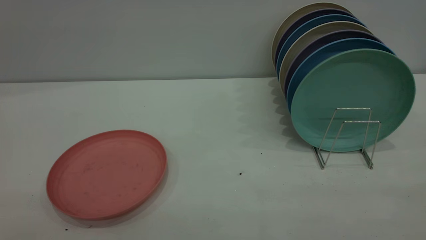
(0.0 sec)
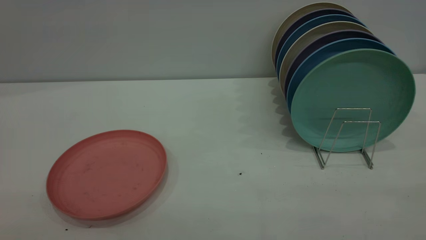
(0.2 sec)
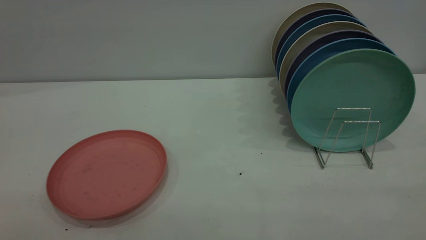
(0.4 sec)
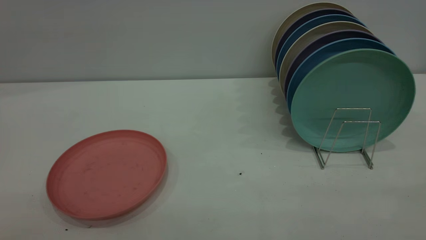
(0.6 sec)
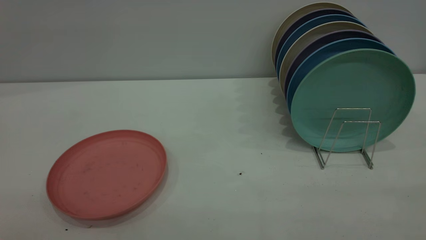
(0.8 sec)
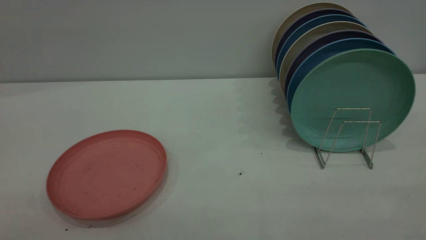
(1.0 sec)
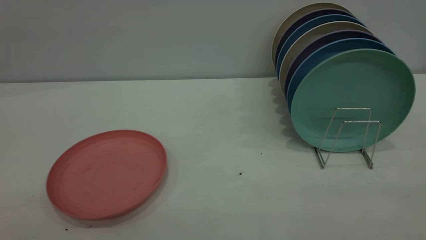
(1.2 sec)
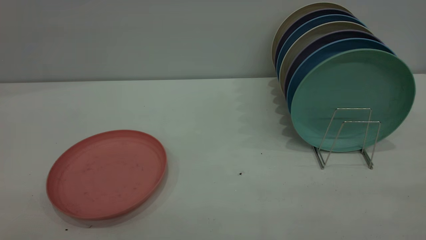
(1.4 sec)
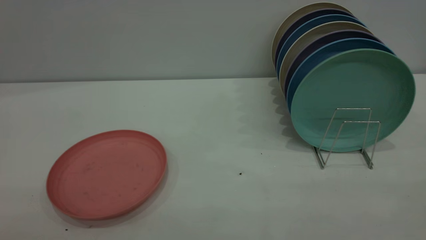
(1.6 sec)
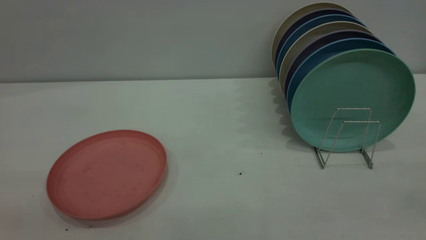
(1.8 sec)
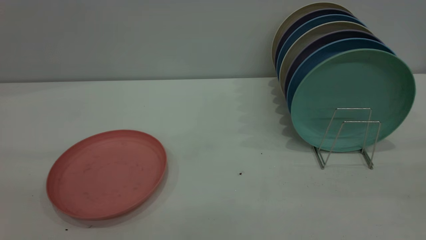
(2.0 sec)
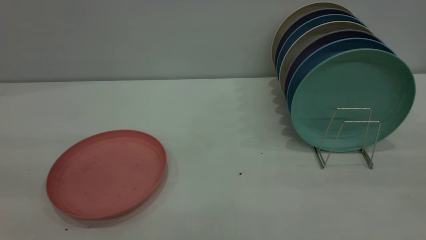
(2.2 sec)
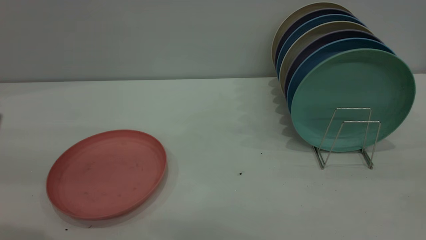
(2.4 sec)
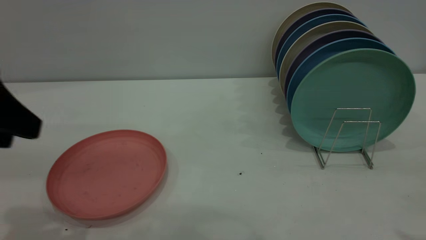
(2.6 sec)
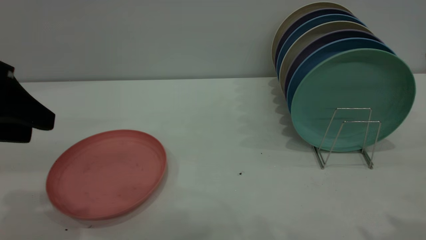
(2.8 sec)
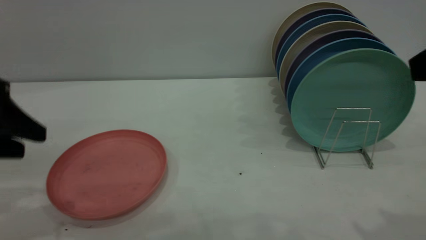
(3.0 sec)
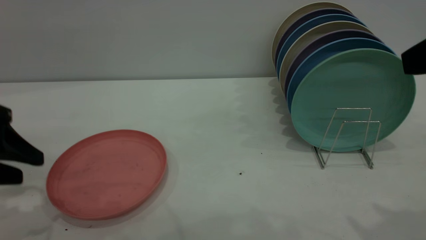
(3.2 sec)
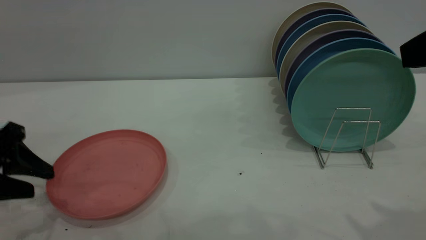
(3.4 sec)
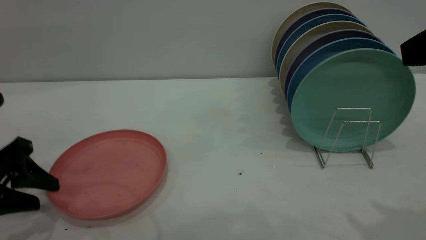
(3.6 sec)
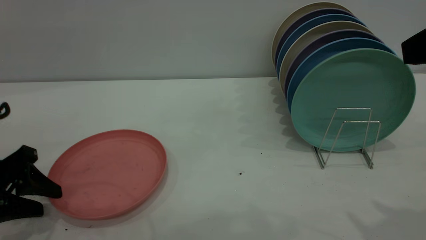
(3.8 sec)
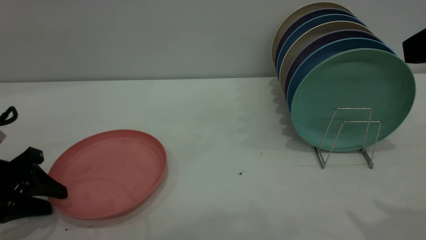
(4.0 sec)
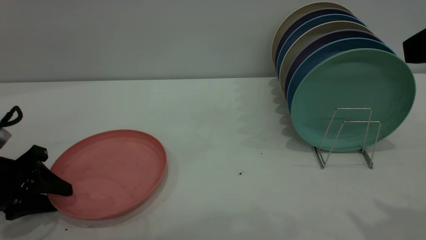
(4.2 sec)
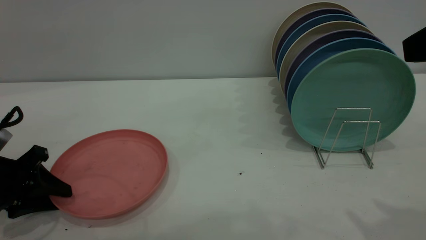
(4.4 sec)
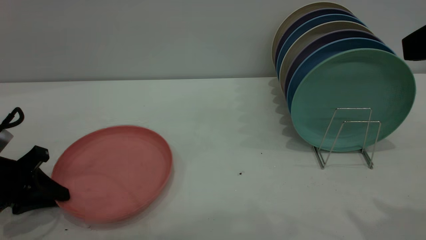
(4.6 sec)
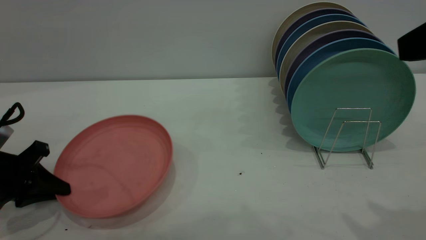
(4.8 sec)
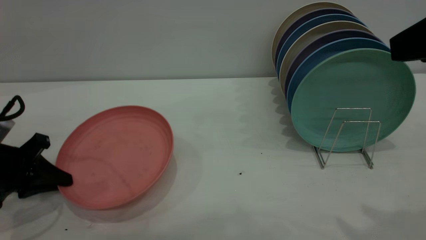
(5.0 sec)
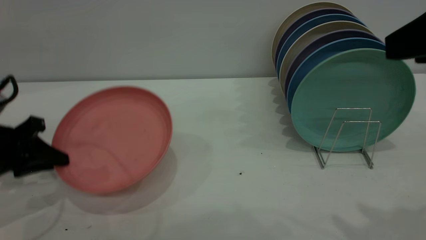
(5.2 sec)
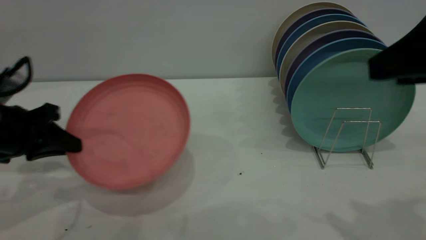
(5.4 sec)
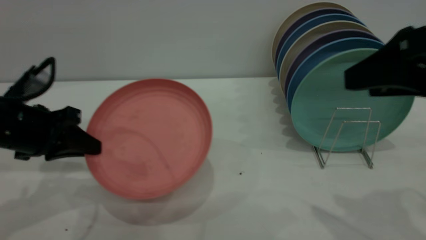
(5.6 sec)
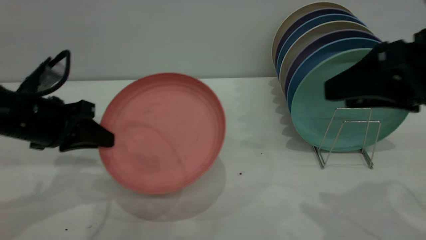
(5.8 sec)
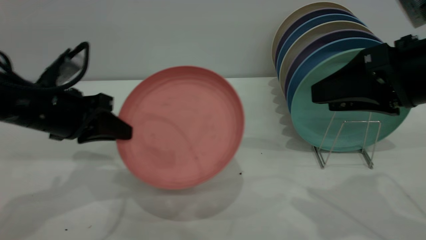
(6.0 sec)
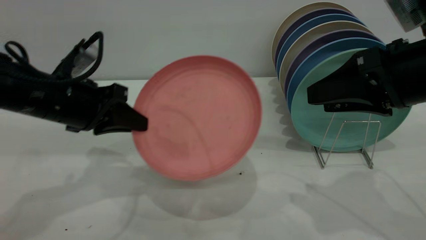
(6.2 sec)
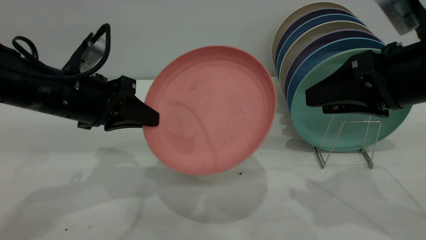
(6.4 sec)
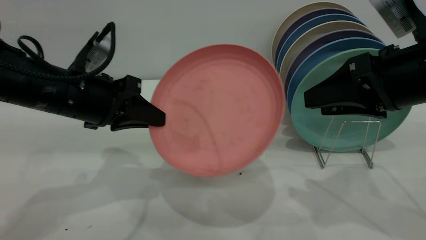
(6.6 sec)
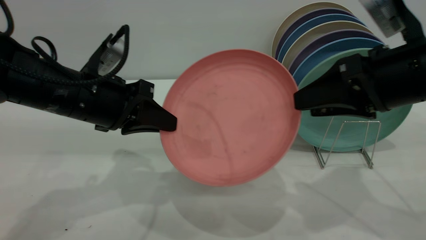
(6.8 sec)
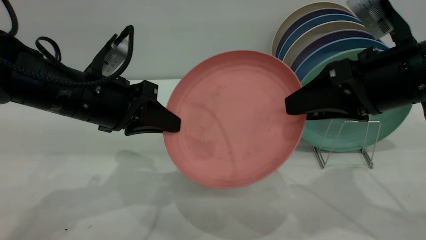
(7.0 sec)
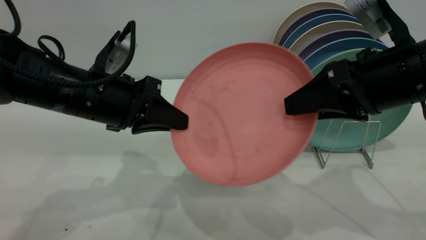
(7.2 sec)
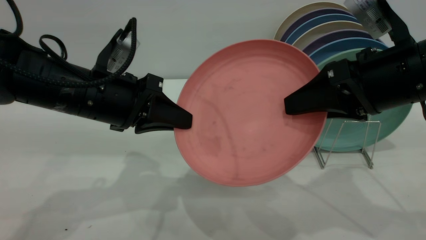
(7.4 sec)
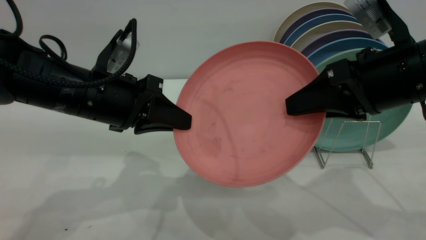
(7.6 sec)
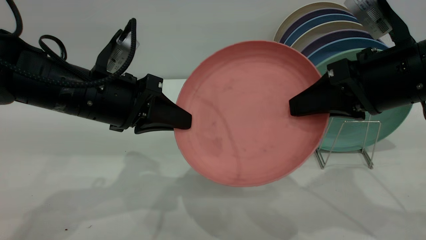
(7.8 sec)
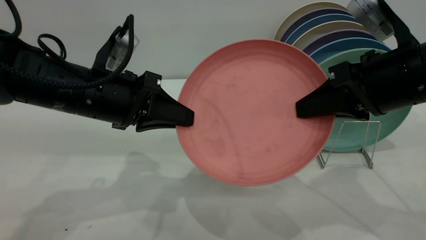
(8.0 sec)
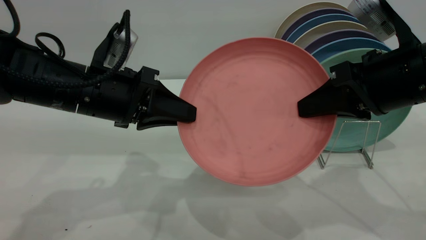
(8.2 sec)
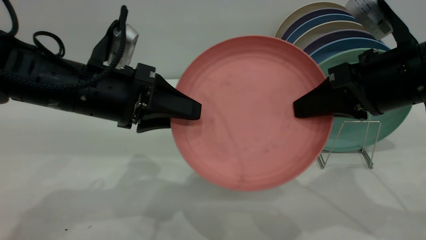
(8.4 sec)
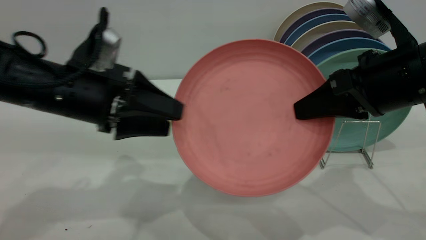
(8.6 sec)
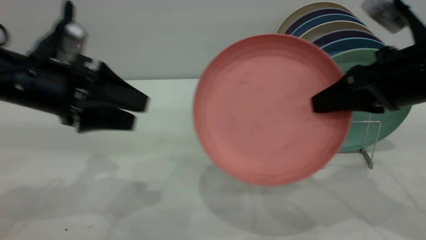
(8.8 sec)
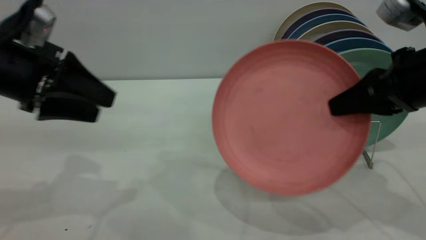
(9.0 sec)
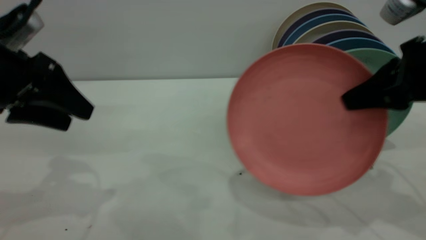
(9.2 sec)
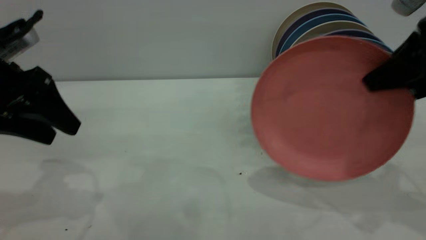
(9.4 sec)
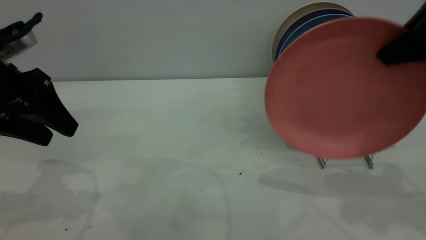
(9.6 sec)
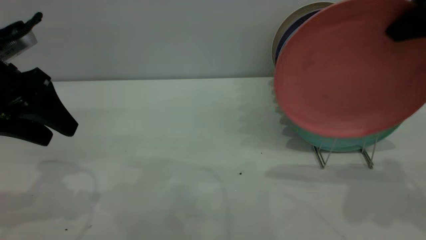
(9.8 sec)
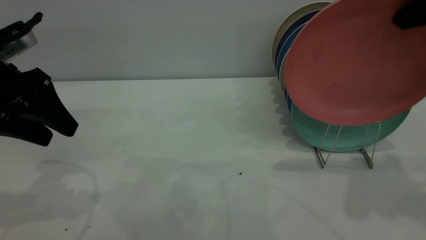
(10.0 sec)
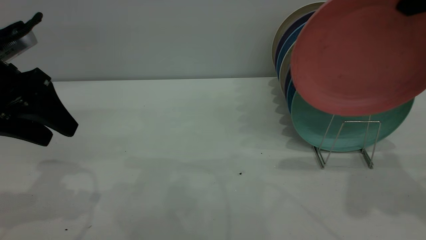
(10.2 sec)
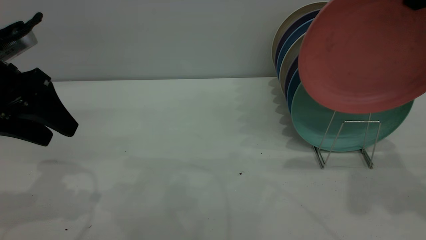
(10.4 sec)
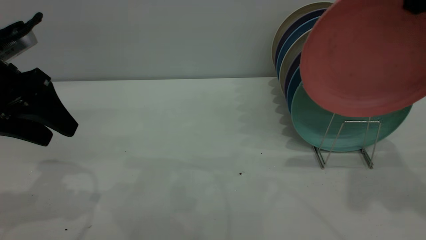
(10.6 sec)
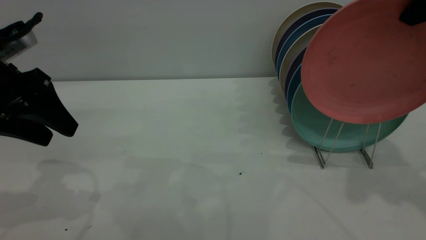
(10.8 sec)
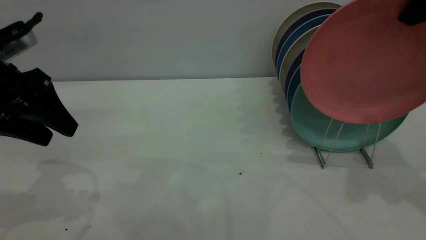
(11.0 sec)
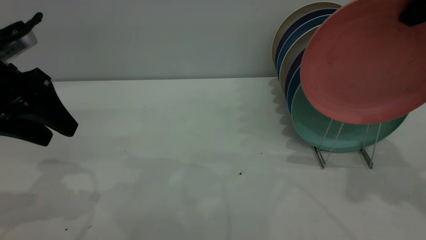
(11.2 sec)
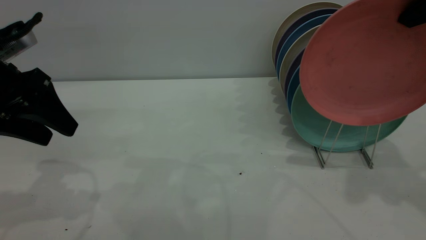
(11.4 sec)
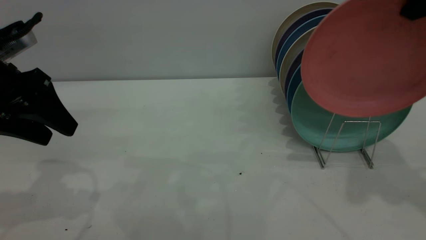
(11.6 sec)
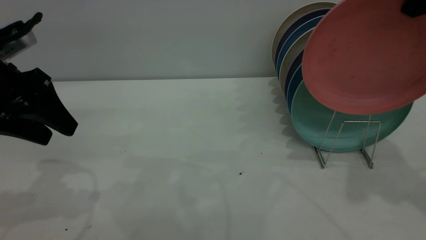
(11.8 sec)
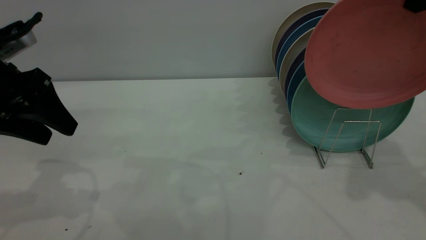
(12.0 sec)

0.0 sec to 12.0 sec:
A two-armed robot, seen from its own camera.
Task of the whole recording: the left gripper grasp the pink plate, the left gripper pass the pink plate to the right gripper, and the right gripper place the pink plate on the plate rack.
Step, 0.0 sec to 5.2 sec: Pick up the plate with the left gripper.
Step, 5.4 sec to 8.8 sec: Pass the plate from the left gripper to the right gripper.
1.6 sec to 3.0 sec: The left gripper travels forward and downward by approximately 30 cm.
3.0 sec to 4.4 sec: The left gripper heads downward, covering roughly 15 cm.
4.4 sec to 6.0 sec: The right gripper heads downward and forward, covering about 10 cm; the left gripper moves to the right, upward and forward, about 15 cm, and closes.
6.0 sec to 7.6 sec: The left gripper heads to the right, covering roughly 5 cm.
7.6 sec to 9.0 sec: The right gripper closes up, while the left gripper goes approximately 10 cm to the left and upward, and opens up.
9.0 sec to 10.4 sec: The right gripper heads upward, covering approximately 15 cm.

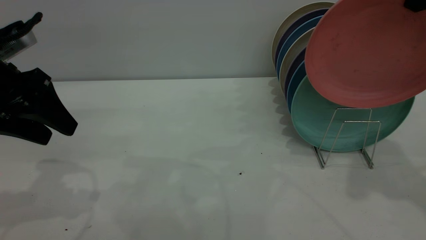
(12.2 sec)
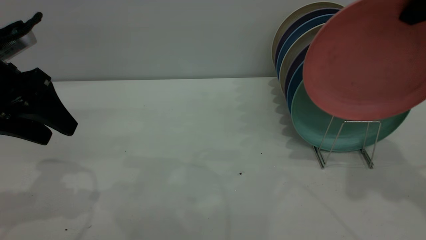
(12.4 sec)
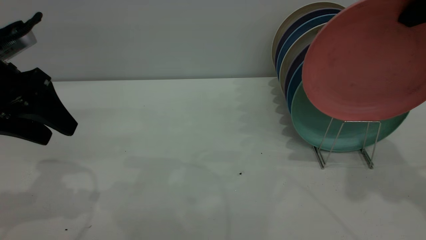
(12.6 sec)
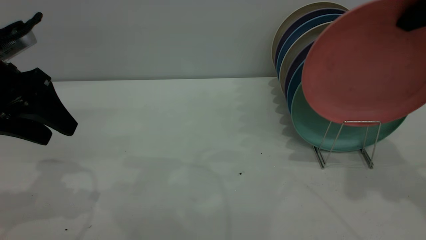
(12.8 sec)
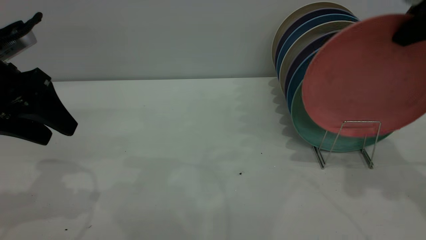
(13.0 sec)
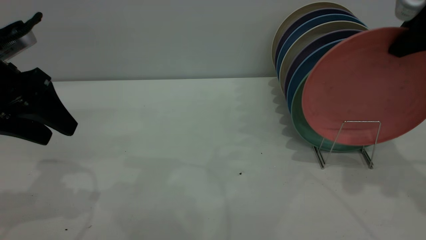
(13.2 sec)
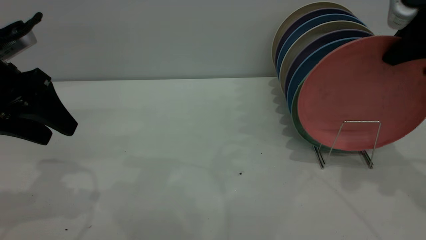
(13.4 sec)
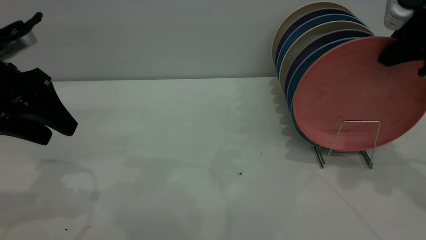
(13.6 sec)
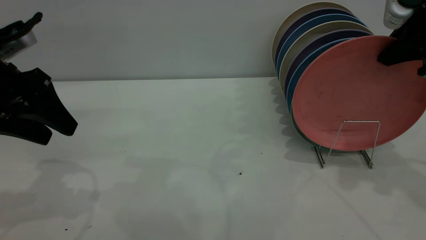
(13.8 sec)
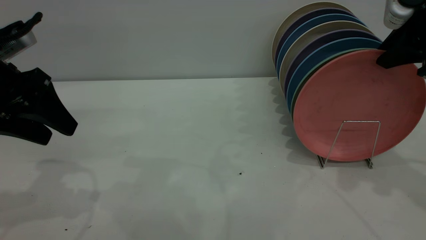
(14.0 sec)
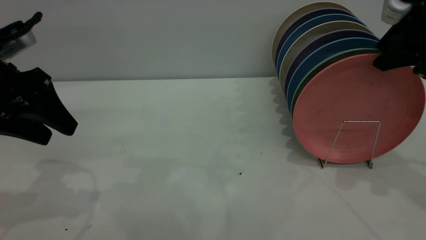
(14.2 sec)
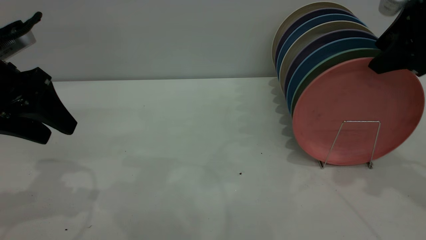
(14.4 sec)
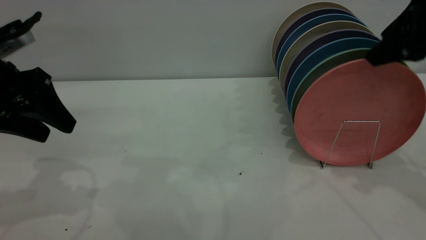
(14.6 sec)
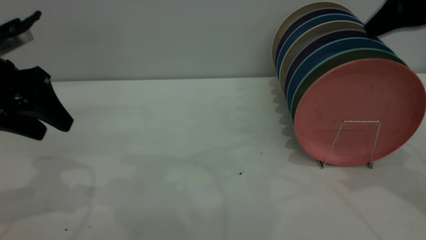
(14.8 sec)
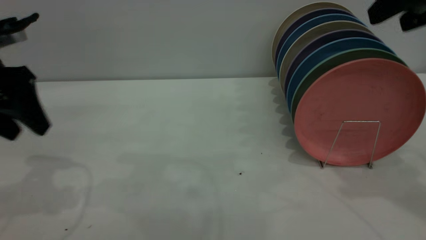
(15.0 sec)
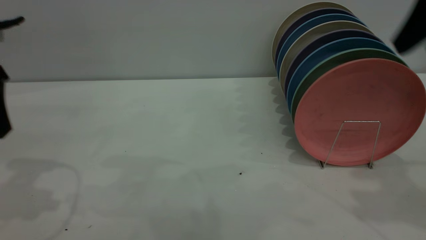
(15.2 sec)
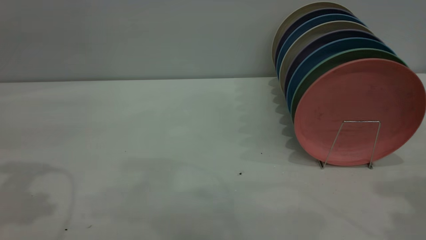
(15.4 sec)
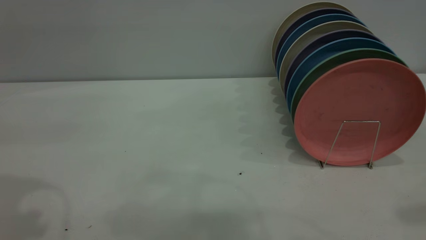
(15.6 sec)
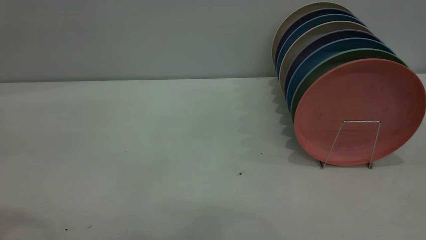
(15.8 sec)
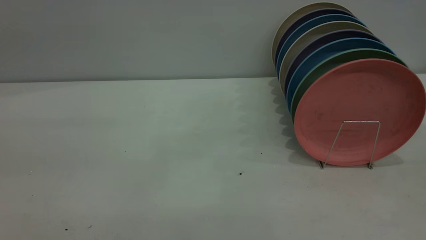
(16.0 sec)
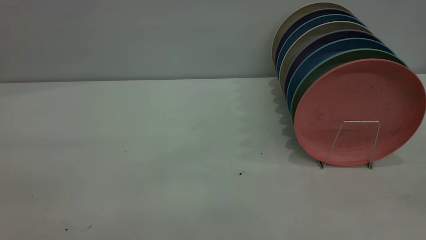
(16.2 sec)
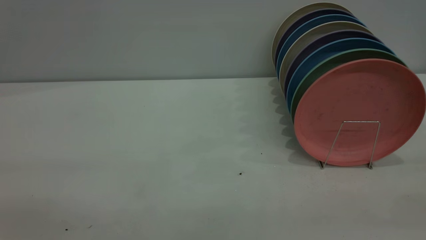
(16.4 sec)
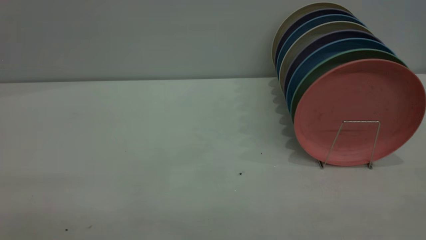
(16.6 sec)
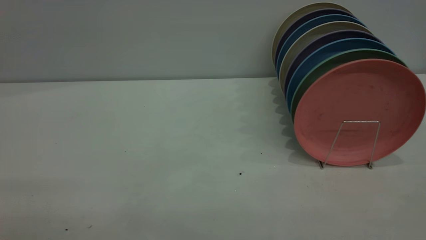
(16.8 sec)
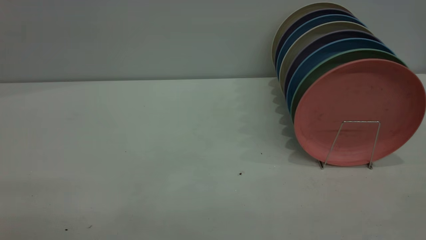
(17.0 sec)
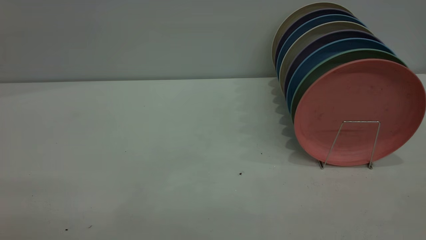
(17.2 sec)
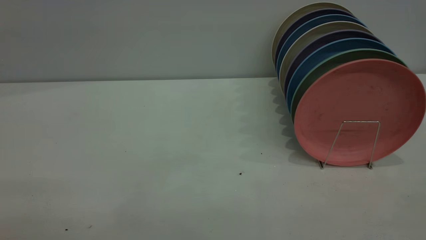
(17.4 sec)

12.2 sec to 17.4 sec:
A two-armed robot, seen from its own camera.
Task of the whole recording: the left gripper grasp the pink plate, the left gripper pass the pink plate to the right gripper, and the right gripper place the pink plate on the plate rack.
Step, 12.2 sec to 14.8 sec: Place the plate on the shelf.
12.2 sec to 14.0 sec: The right gripper moves downward, approximately 5 cm.
14.0 sec to 15.6 sec: The left gripper shifts roughly 15 cm upward. Meanwhile the right gripper travels backward and upward by approximately 20 cm, and opens its fingers.
